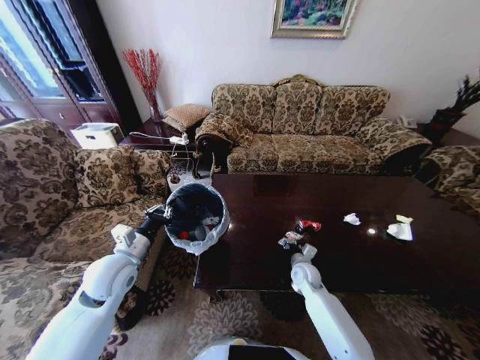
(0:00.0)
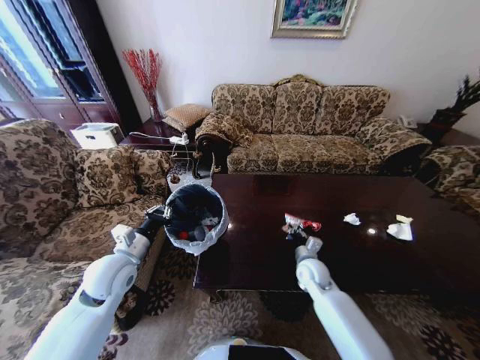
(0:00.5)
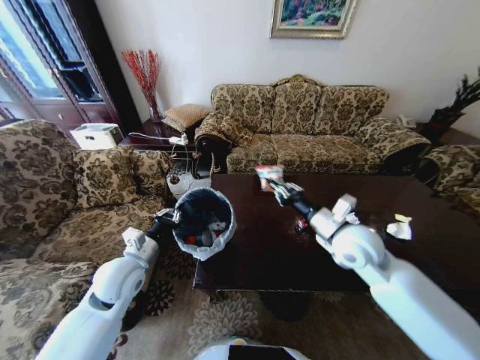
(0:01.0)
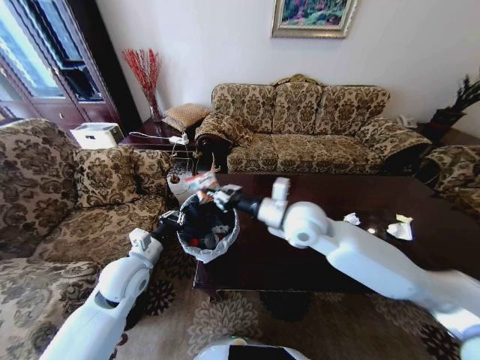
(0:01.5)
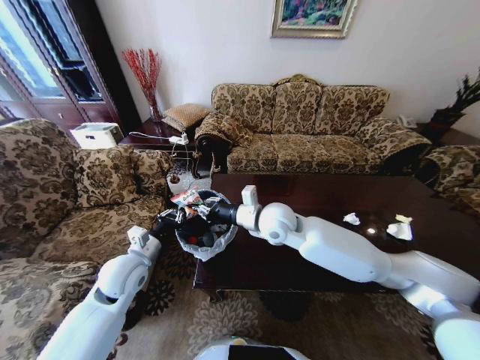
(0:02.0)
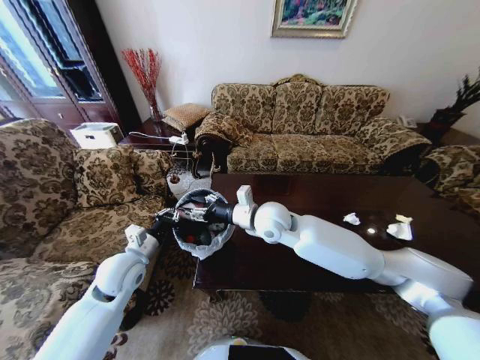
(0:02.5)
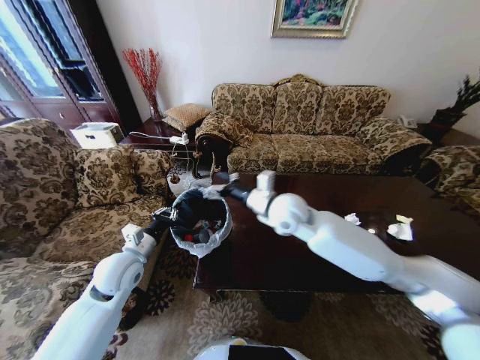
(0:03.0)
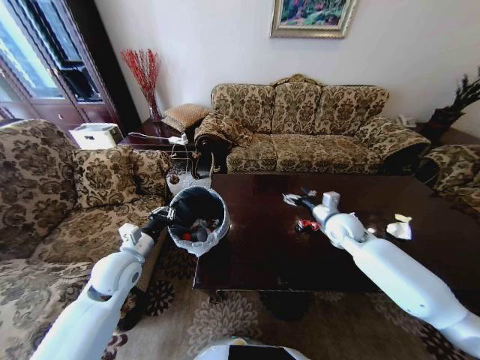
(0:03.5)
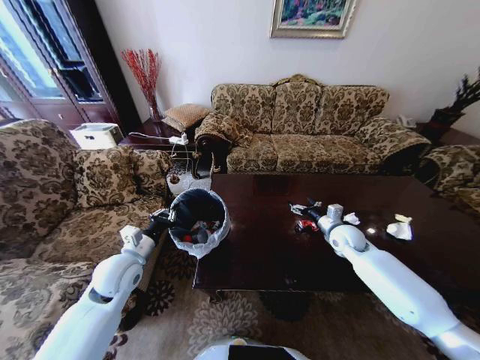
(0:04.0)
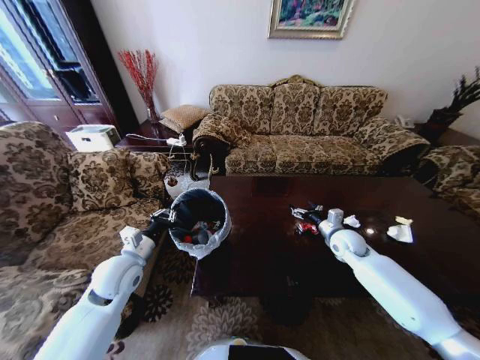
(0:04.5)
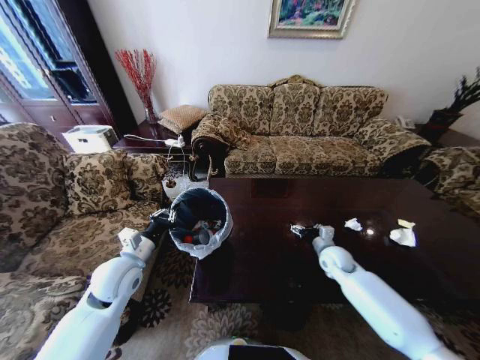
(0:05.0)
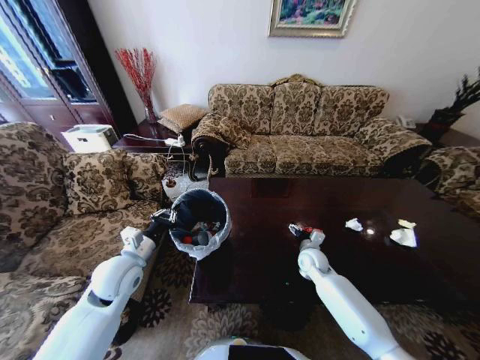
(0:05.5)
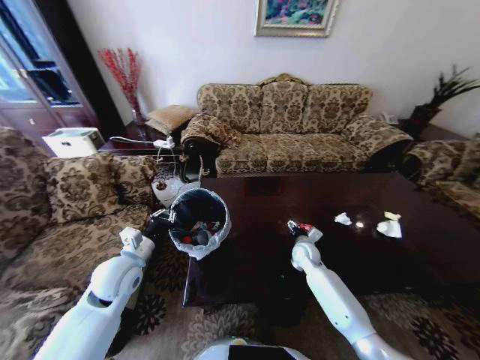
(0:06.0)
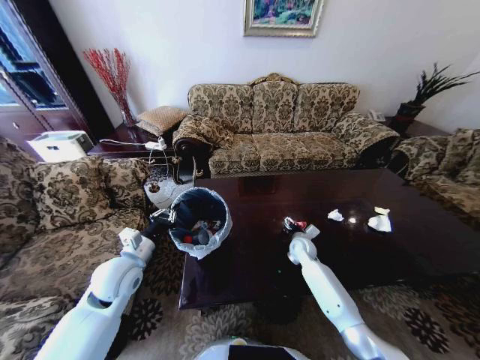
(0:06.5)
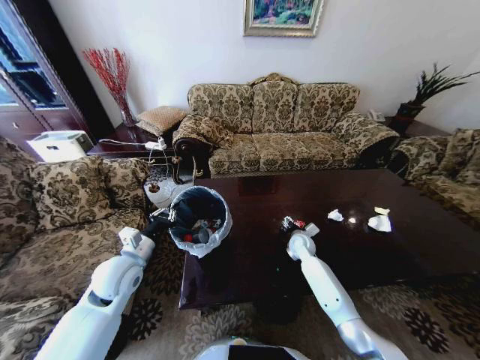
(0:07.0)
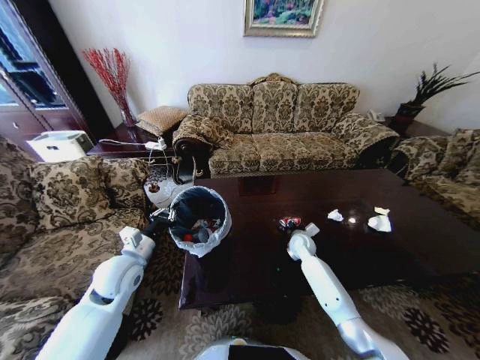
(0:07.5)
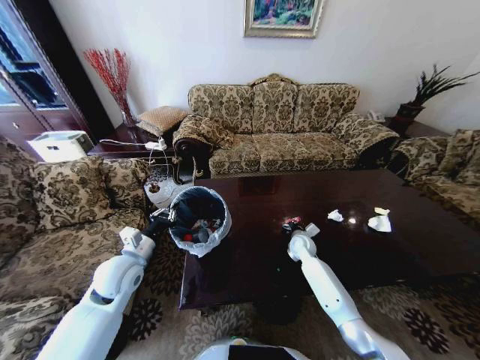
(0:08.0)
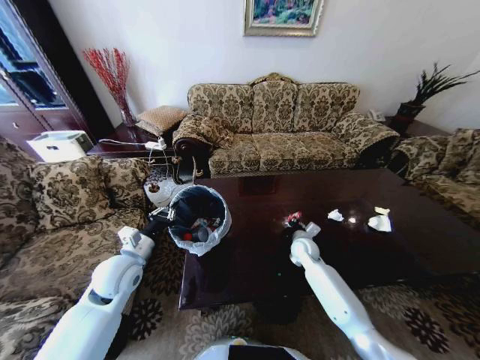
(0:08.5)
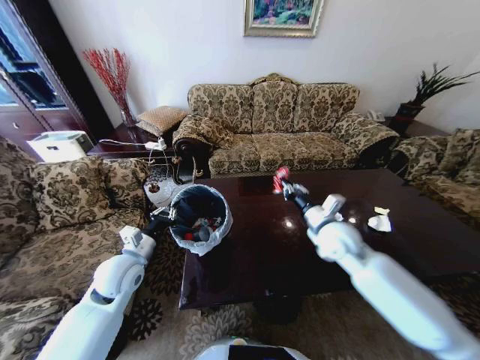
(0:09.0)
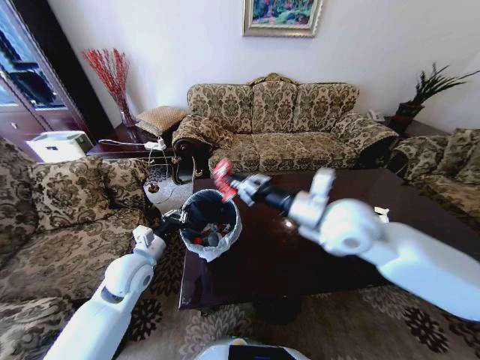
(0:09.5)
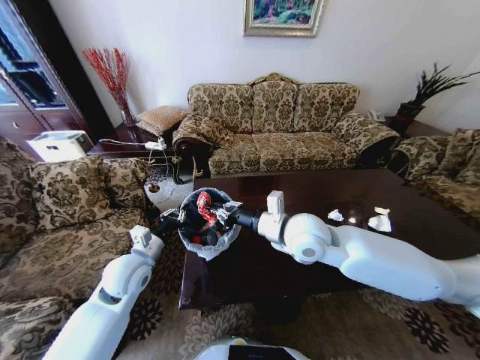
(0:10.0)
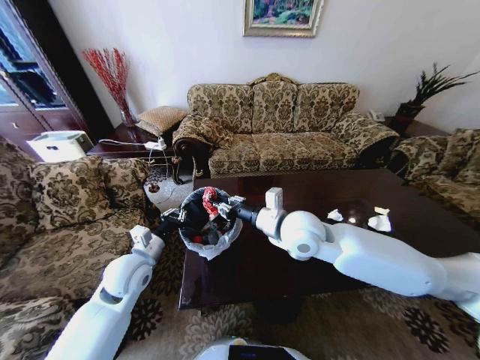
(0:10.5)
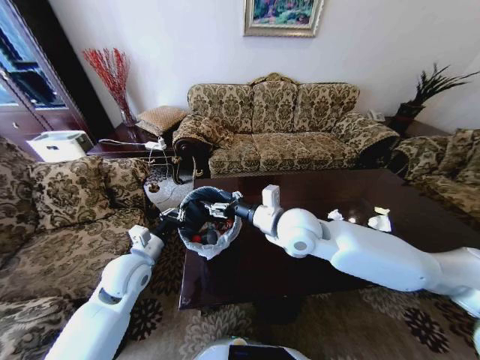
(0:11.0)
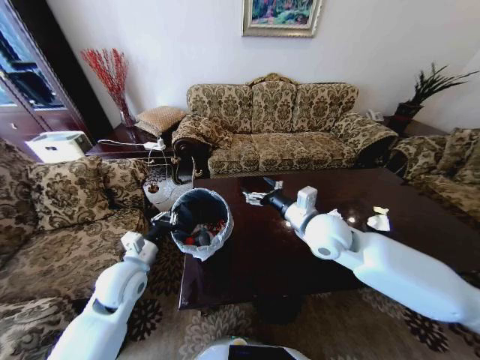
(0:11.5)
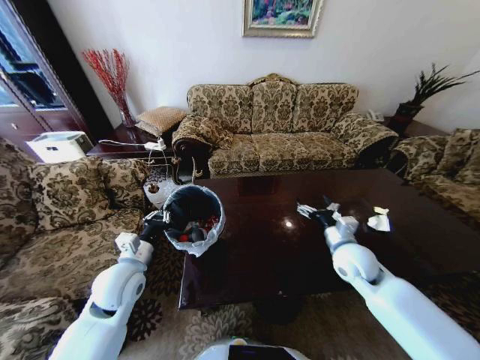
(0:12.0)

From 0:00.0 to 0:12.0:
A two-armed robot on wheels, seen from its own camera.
Task of the whole recording: Move to the front of the table and place the trash on the table into the trash bin.
From 0:00.0 to 0:02.0: The right gripper heads upward and to the left, covering some 30 cm, and closes up.
From 0:02.0 to 0:04.0: The right gripper shifts about 30 cm to the right and downward, and opens its fingers.
From 0:04.0 to 0:06.0: The right gripper heads downward and to the left, covering some 15 cm.
From 0:06.0 to 0:08.0: The right gripper closes.
From 0:08.0 to 0:10.0: The right gripper heads upward, backward and to the left, covering approximately 35 cm.
From 0:10.0 to 0:12.0: The right gripper travels to the right and downward by about 20 cm, and opens its fingers.

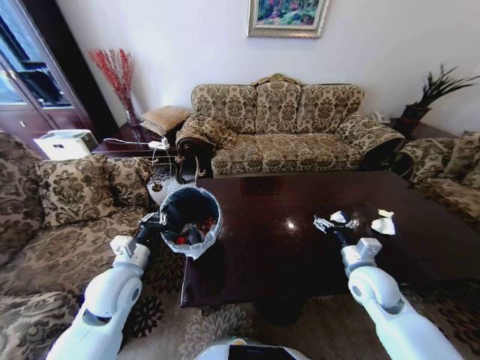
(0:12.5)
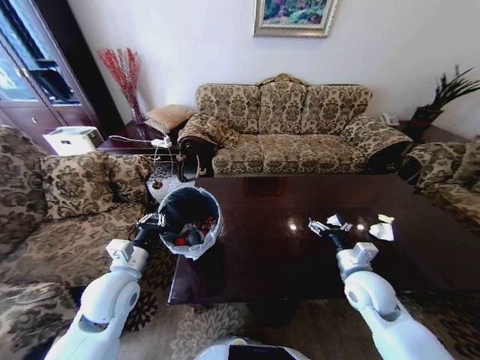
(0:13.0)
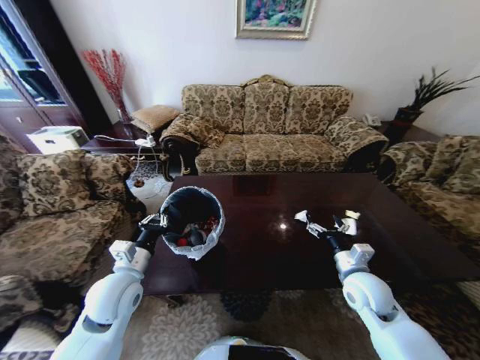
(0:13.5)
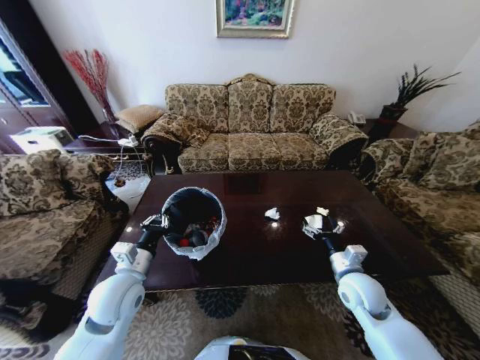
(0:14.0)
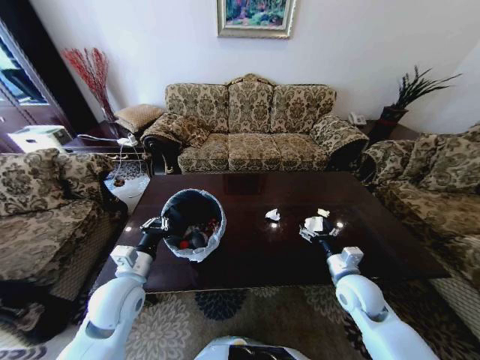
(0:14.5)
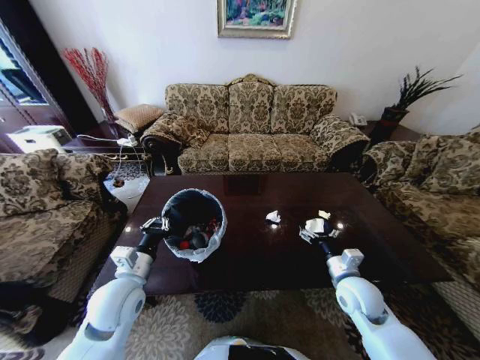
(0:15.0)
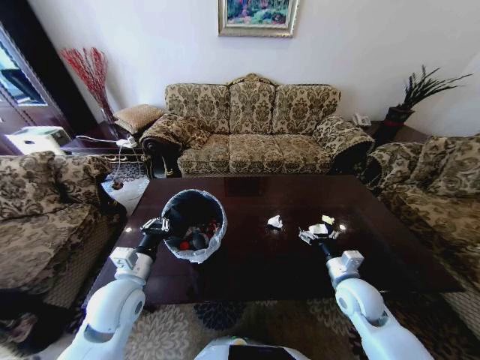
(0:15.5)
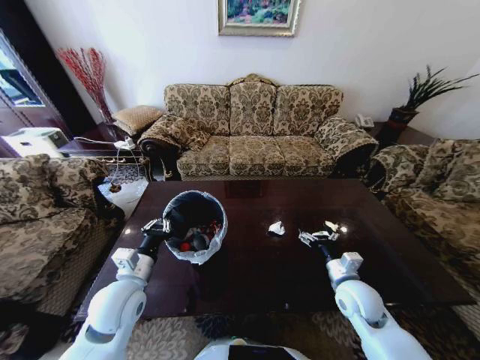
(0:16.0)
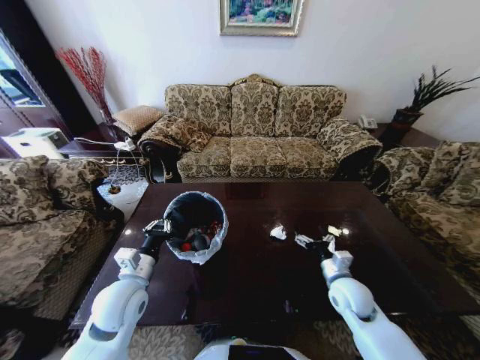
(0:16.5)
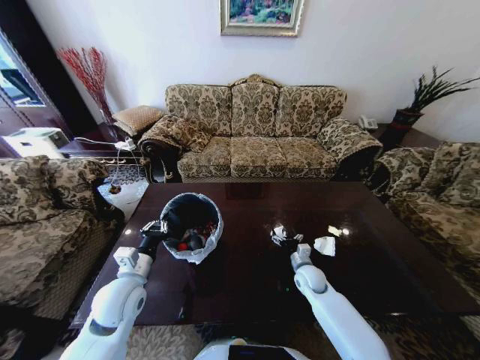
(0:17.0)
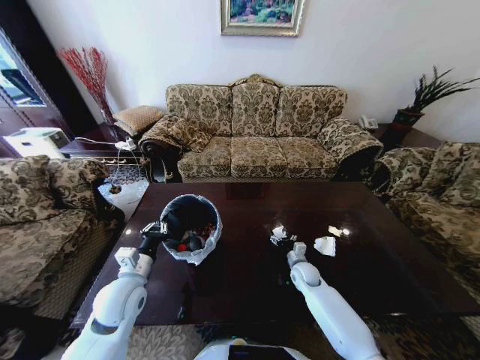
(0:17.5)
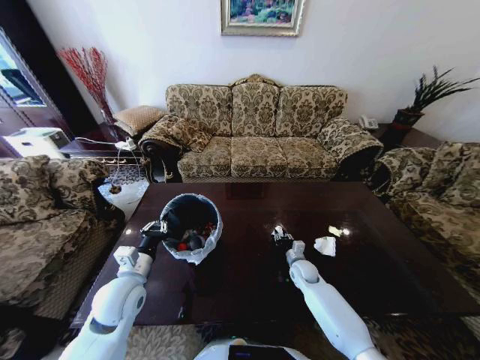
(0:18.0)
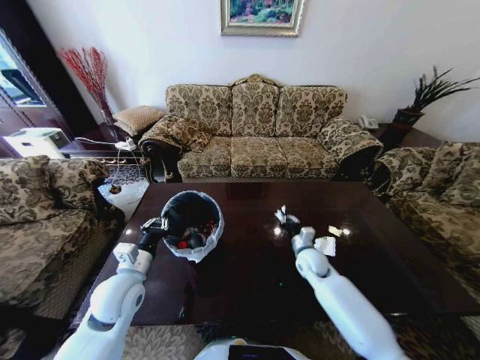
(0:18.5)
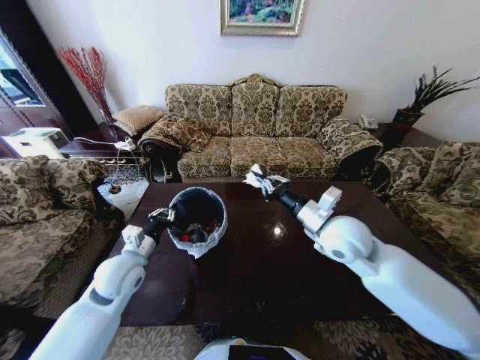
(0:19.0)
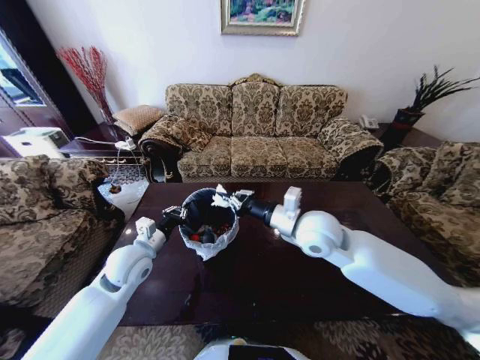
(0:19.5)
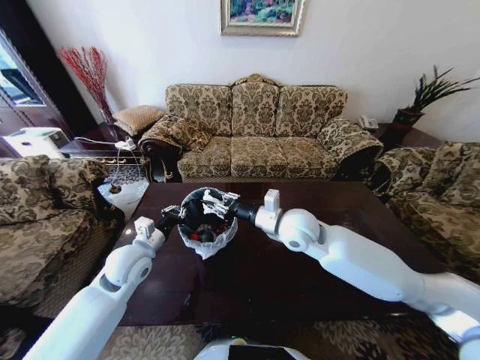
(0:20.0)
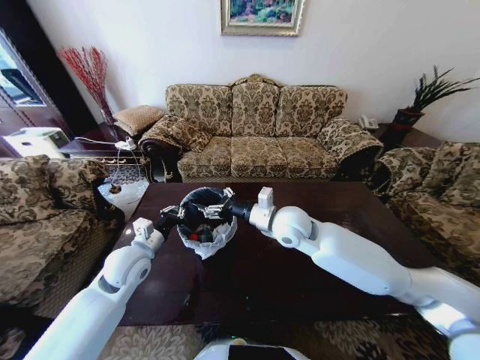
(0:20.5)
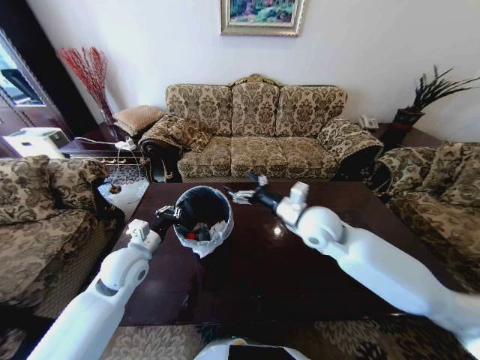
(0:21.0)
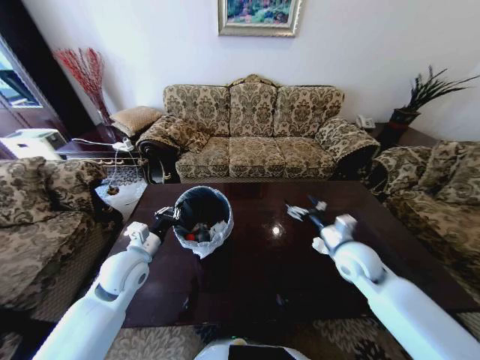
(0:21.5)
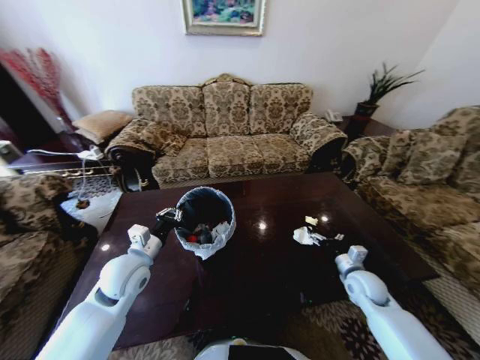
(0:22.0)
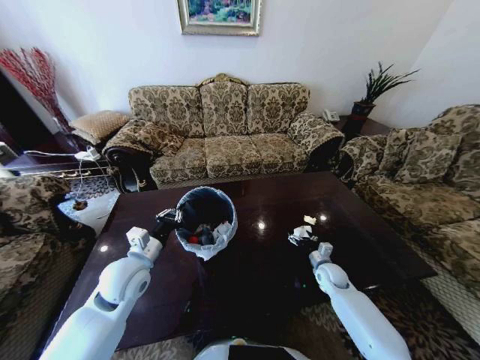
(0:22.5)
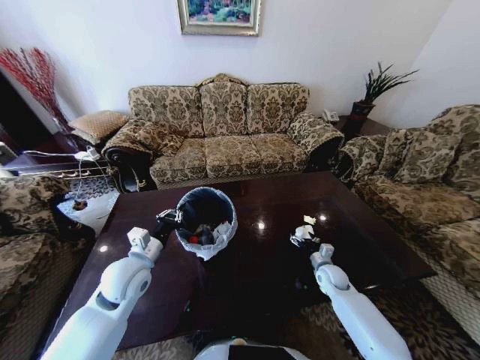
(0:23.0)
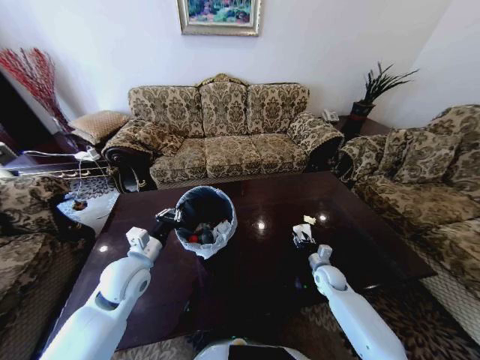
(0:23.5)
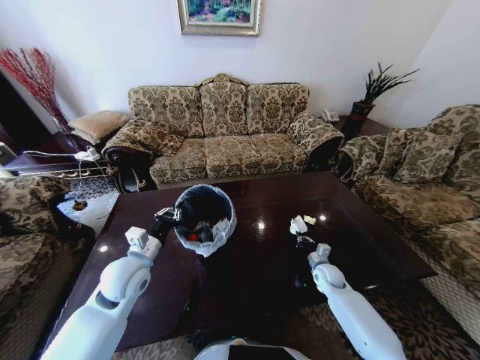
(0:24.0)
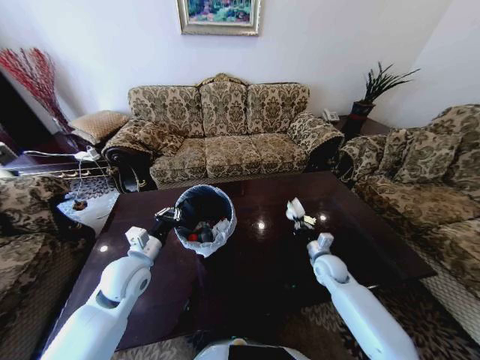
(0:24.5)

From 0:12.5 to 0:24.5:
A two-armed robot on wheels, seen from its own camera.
Task of the whole recording: Move to the front of the table and place the trash on the table into the trash bin.
From 0:16.5 to 0:18.5: The right gripper travels forward, to the left and downward by approximately 15 cm, and closes its fingers.
From 0:18.5 to 0:20.5: The left gripper heads forward, covering approximately 5 cm; the right gripper shifts about 25 cm upward and to the left, and opens up.
From 0:20.5 to 0:22.5: The right gripper goes about 35 cm downward and to the right.
From 0:22.5 to 0:24.5: The right gripper goes roughly 10 cm upward, and closes.

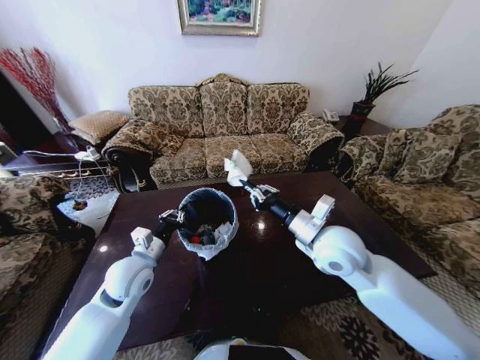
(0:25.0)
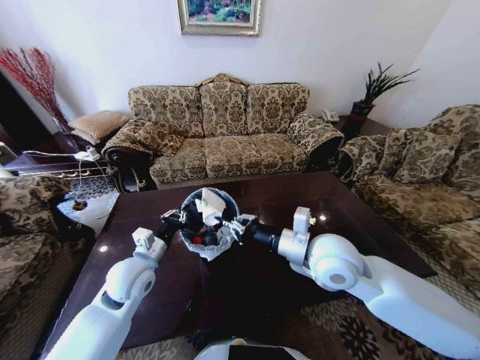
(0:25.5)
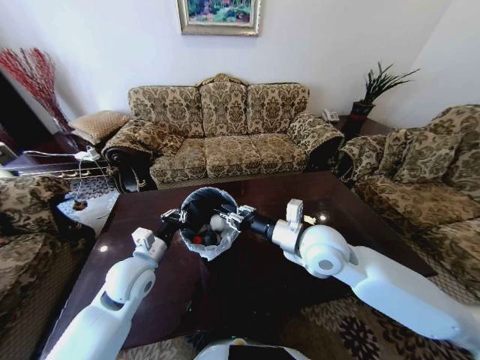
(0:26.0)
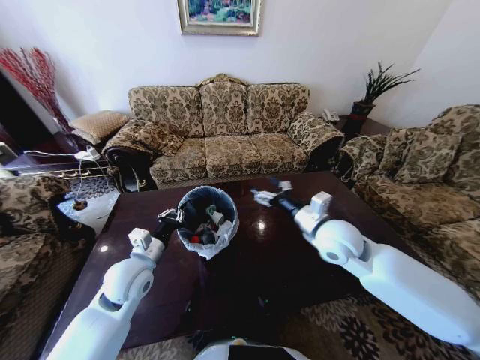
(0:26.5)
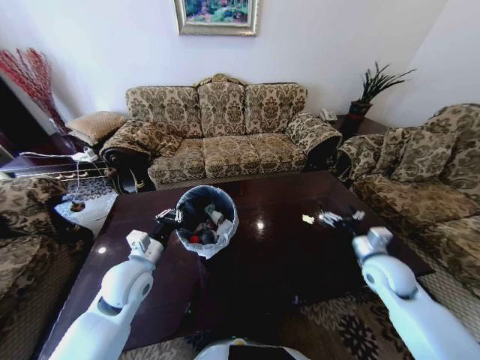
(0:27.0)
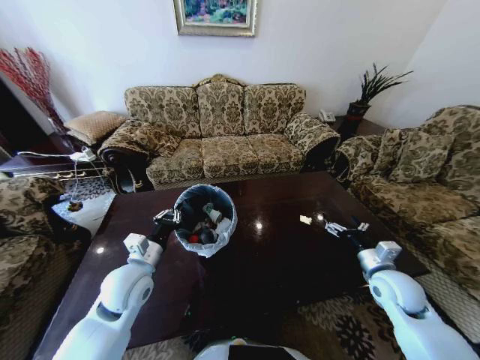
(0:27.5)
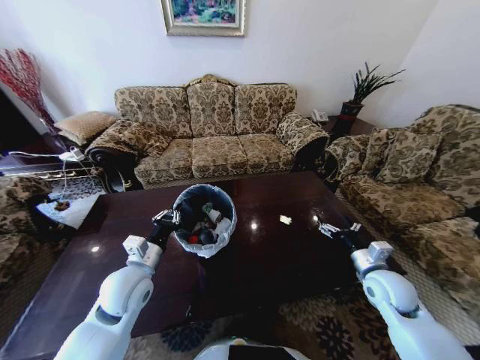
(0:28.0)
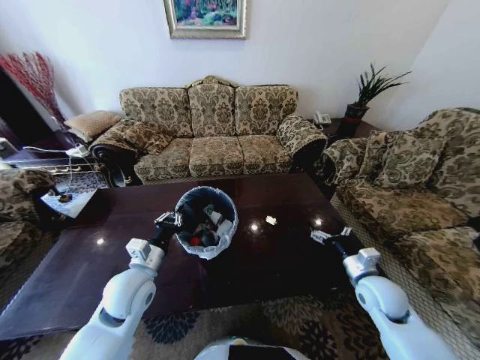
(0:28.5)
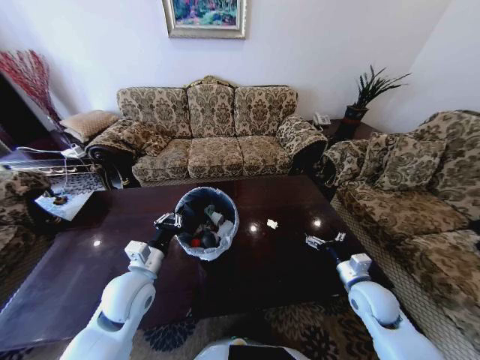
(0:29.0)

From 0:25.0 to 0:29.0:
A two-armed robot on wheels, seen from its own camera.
Task of the whole recording: Move to the front of the table and place the trash on the table into the trash bin.
From 0:25.0 to 0:27.0: The right gripper heads to the right and downward, covering some 25 cm, and opens up.
From 0:27.0 to 0:29.0: The right gripper heads downward, covering roughly 5 cm.
